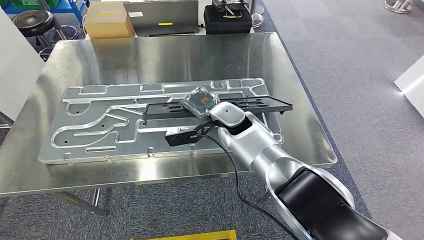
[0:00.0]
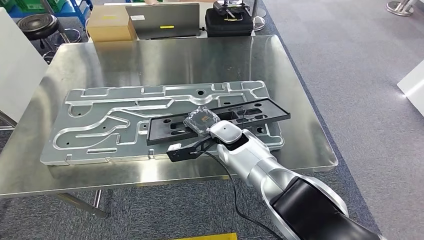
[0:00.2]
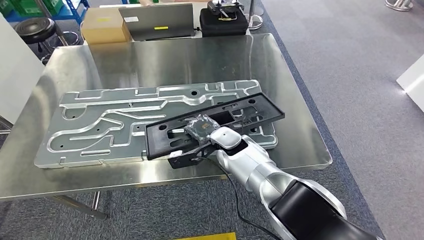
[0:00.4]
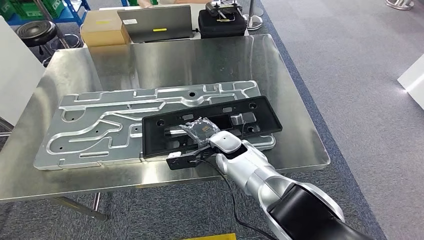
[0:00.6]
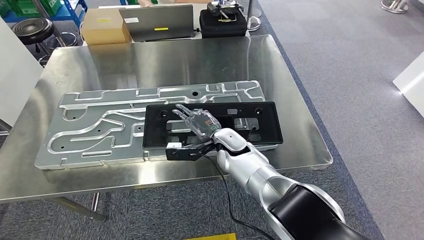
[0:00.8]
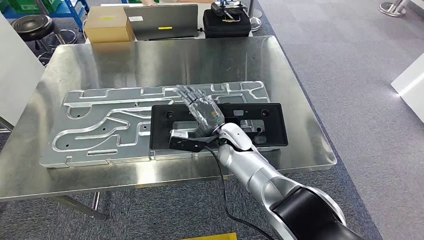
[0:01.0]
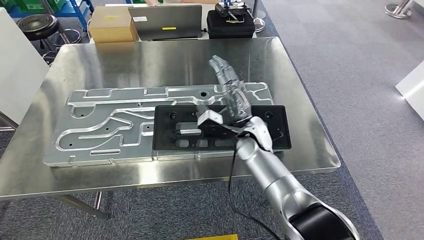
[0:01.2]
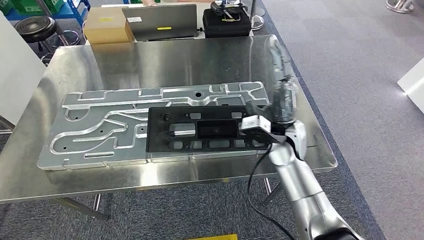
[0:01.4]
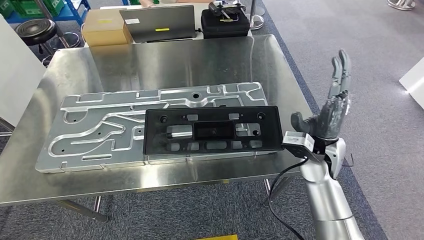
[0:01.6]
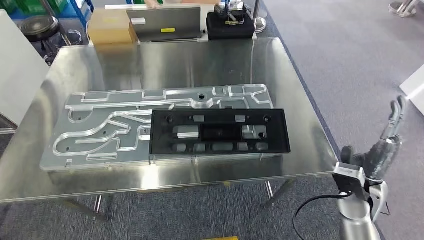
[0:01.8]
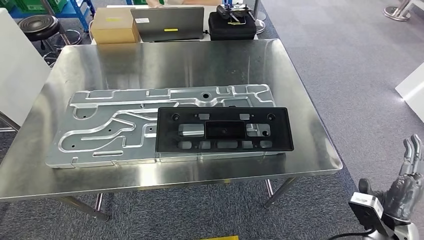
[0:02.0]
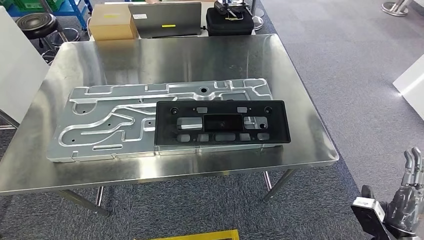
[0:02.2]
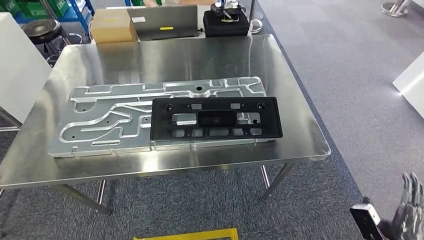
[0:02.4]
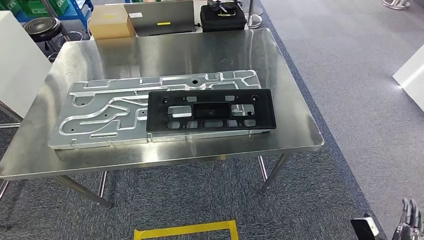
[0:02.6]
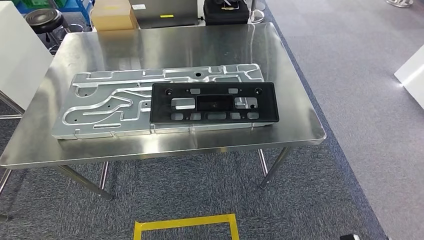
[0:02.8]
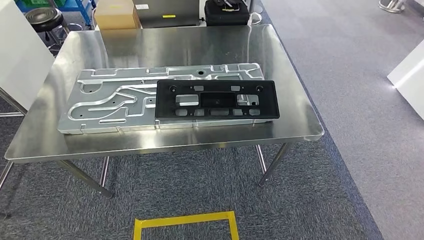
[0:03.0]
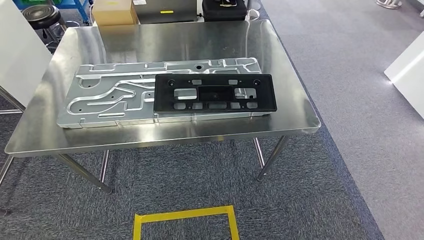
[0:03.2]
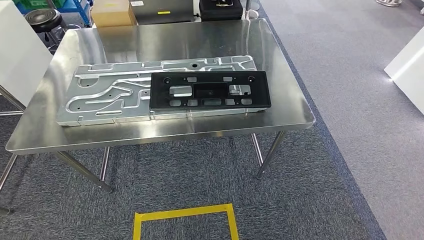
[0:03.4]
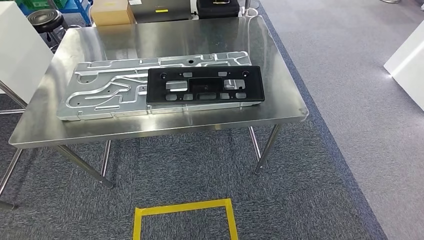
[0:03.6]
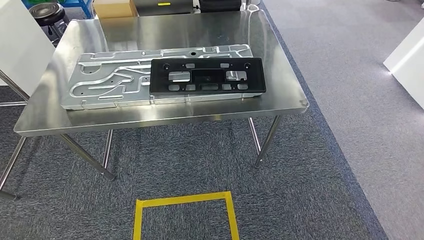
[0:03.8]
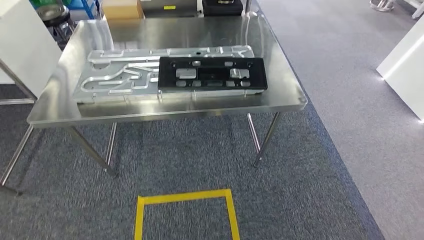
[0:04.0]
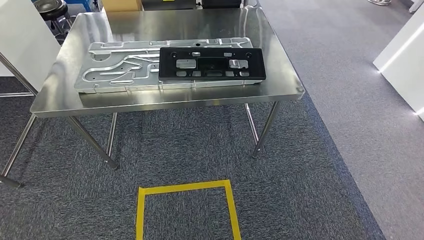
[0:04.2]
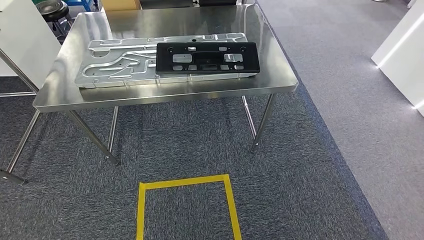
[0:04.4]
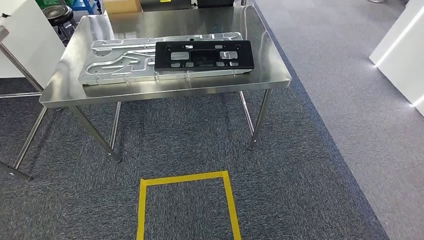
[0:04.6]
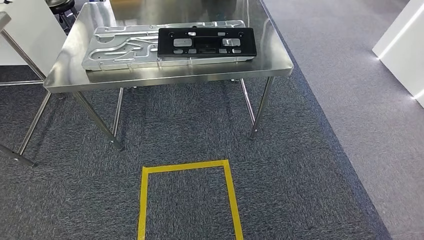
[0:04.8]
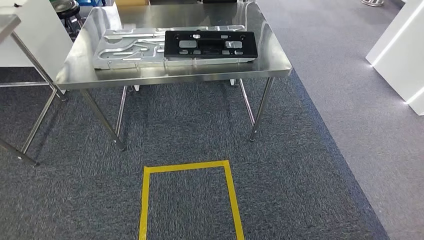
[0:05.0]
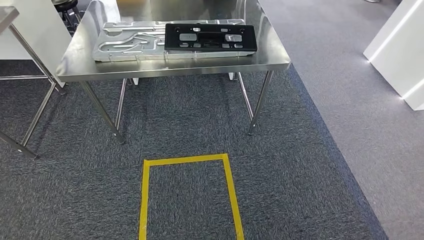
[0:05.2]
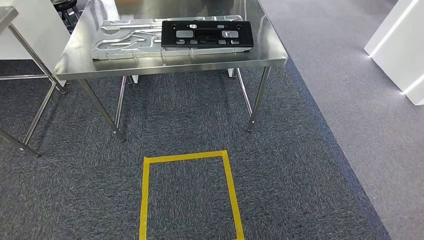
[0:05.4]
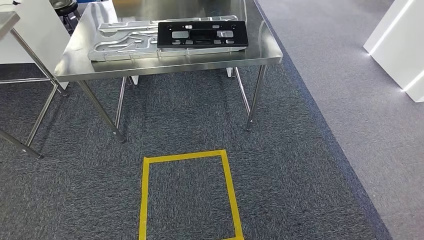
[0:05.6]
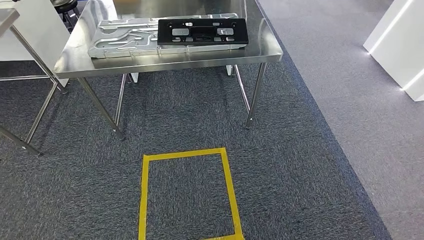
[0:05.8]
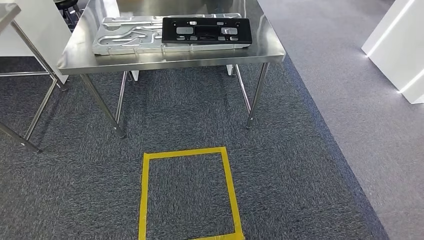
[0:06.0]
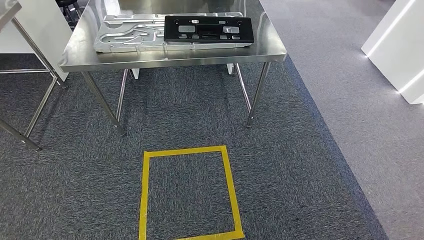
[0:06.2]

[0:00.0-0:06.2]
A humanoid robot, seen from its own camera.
Step, 0:00.6 to 0:02.0: Insert the large material into the corresponding slot on the workbench.
Step, 0:03.0 to 0:06.2: Move to the initial position of the shelf.
